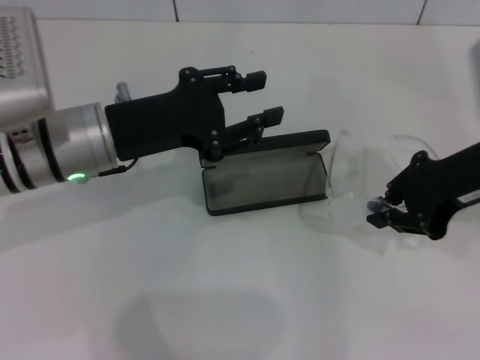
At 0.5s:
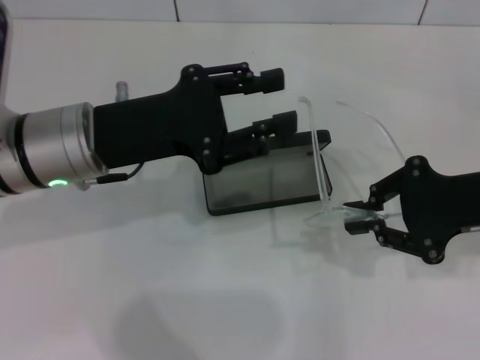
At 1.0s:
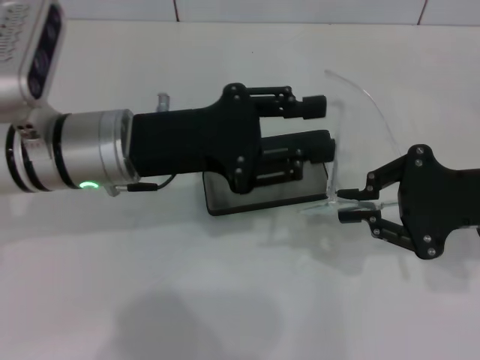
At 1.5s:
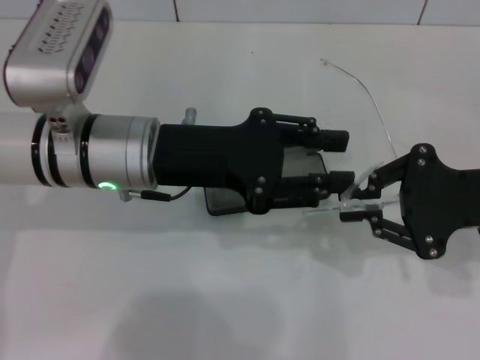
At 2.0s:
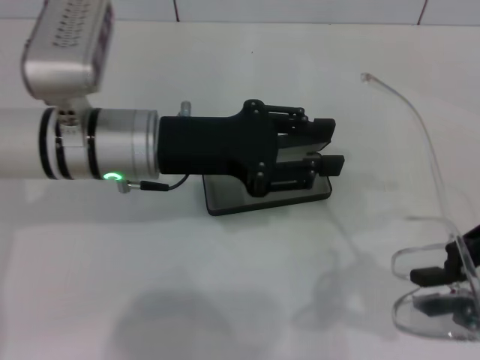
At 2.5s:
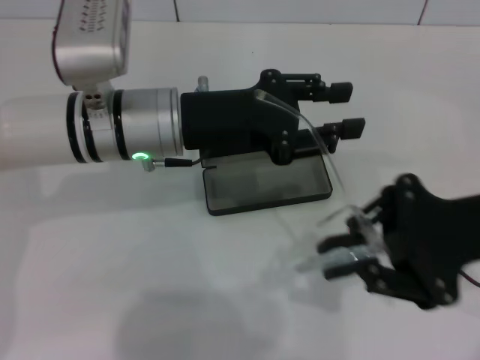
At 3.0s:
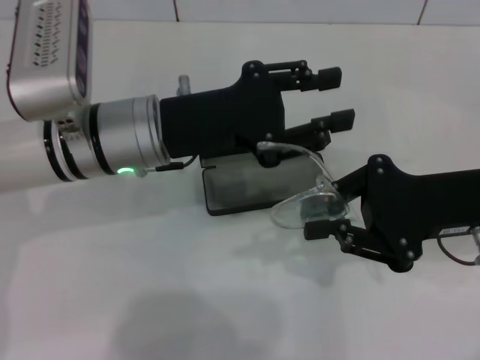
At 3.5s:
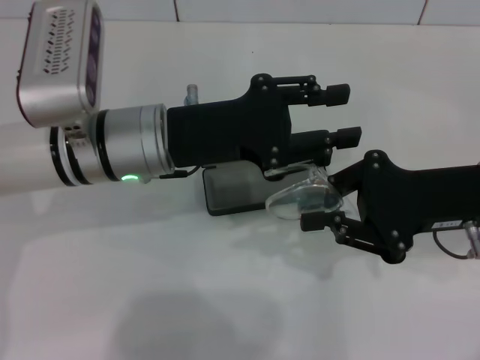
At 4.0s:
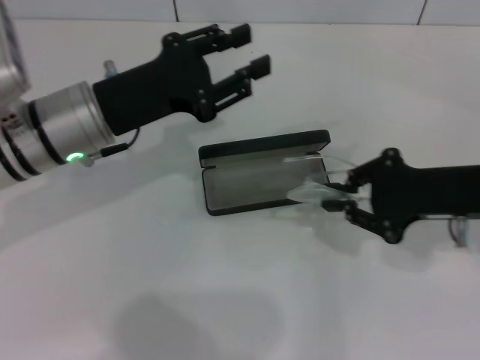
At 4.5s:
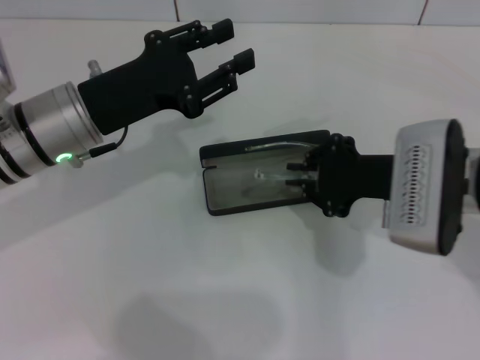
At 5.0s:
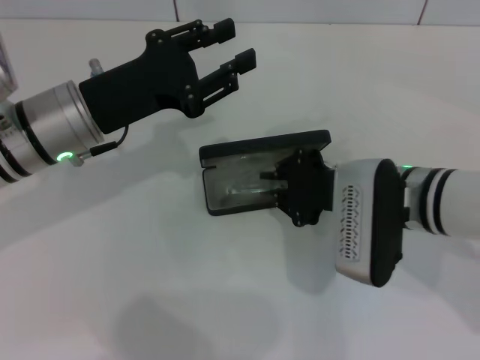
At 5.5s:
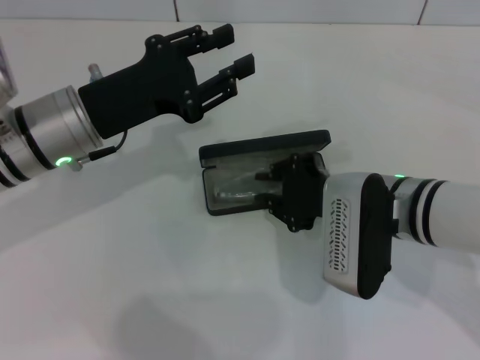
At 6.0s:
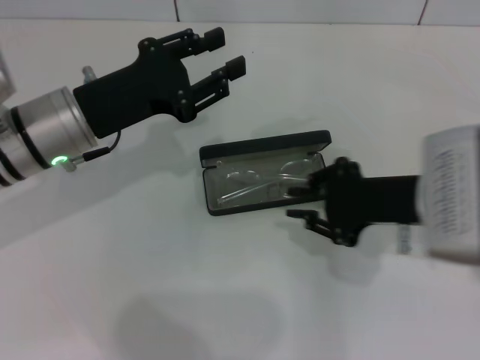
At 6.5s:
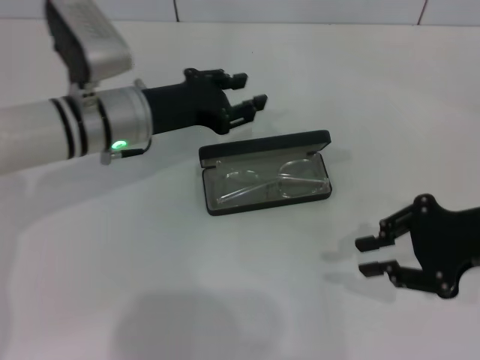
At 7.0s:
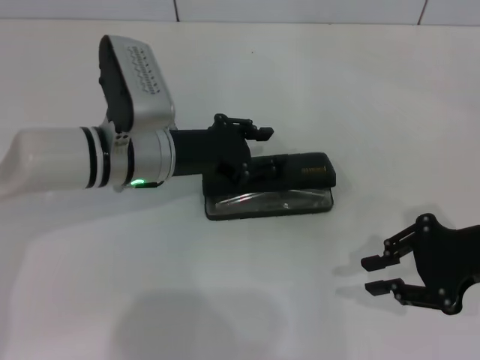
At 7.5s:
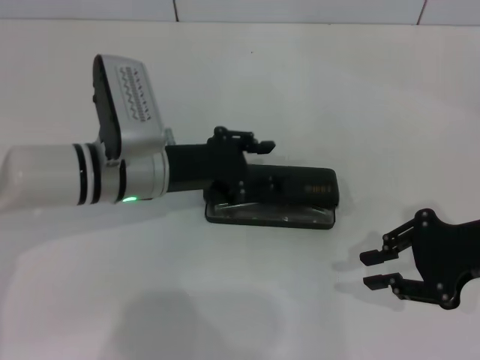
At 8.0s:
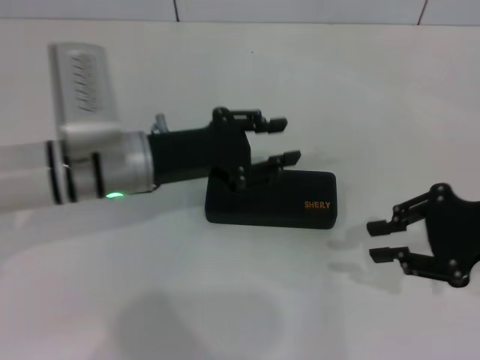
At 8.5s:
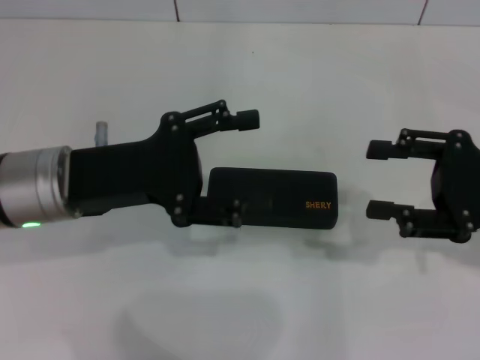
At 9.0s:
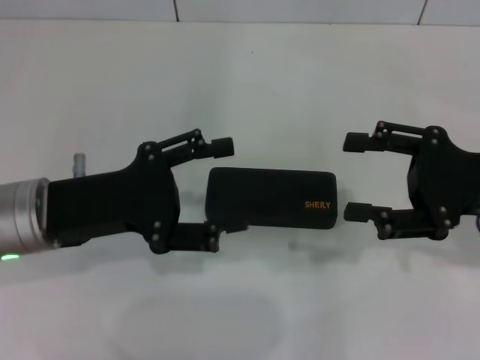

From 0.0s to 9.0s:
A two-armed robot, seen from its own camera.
Step, from 0.0s to 3.0s: Fold the frame with your left hand.
Step, from 3.5s to 5.5s: Put the glasses into the case with your right hand.
Step, from 6.0s to 7.5s: Close the glasses case with your left hand.
From 0.0s to 2.0s: The right gripper shifts roughly 10 cm backward and to the right.
From 2.0s to 4.5s: The right gripper goes some 15 cm to the left and forward. Meanwhile the left gripper travels to the left by roughly 5 cm.
From 4.5s to 7.0s: The right gripper is displaced to the right by about 10 cm, while the left gripper shifts some 5 cm to the right.
From 7.0s to 9.0s: The right gripper opens its fingers. Meanwhile the left gripper moves backward and to the left, about 10 cm, and opens.
